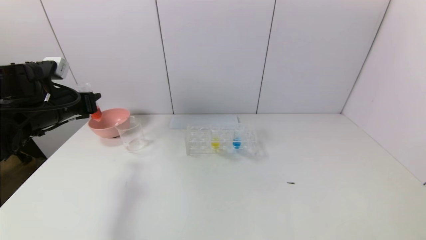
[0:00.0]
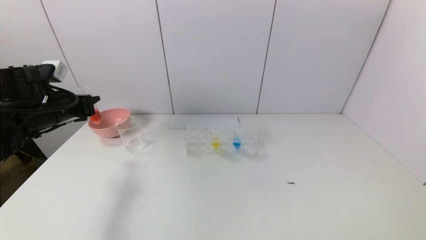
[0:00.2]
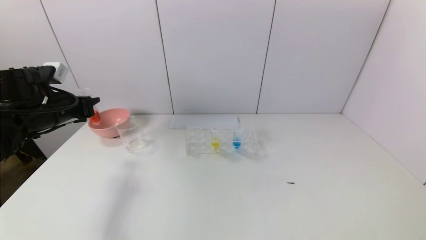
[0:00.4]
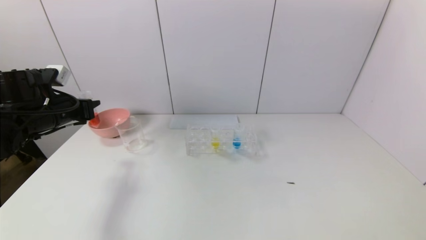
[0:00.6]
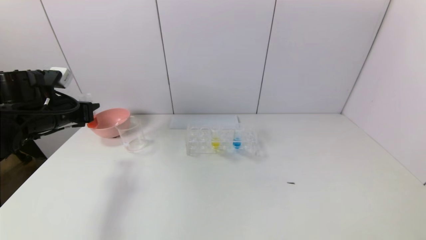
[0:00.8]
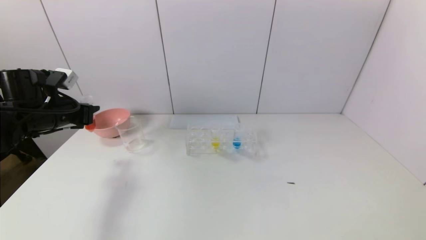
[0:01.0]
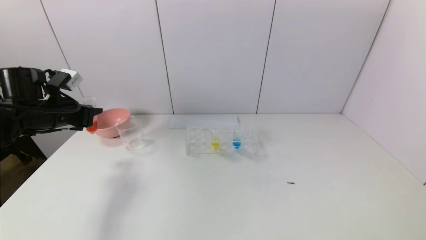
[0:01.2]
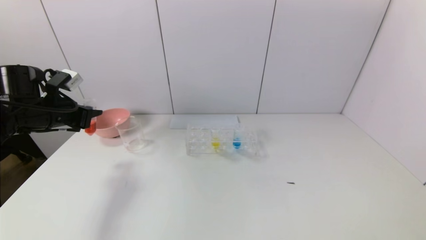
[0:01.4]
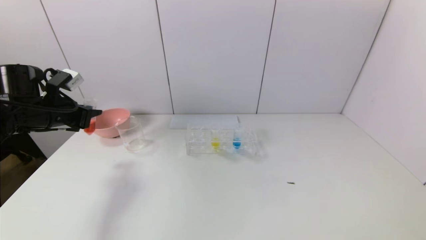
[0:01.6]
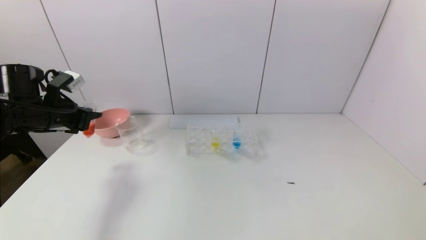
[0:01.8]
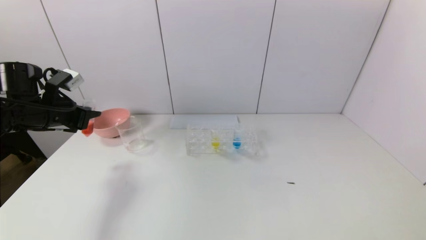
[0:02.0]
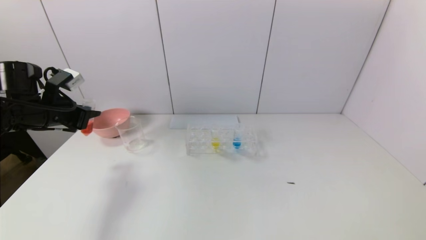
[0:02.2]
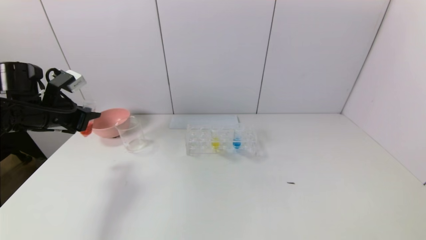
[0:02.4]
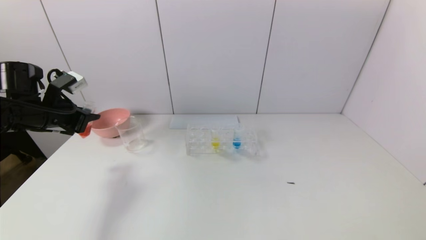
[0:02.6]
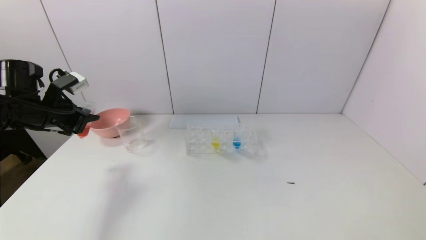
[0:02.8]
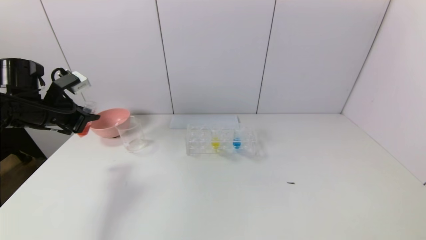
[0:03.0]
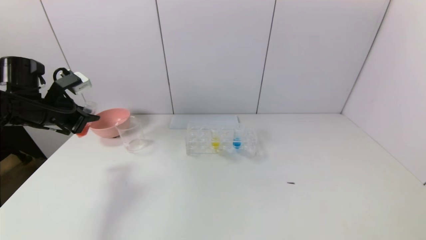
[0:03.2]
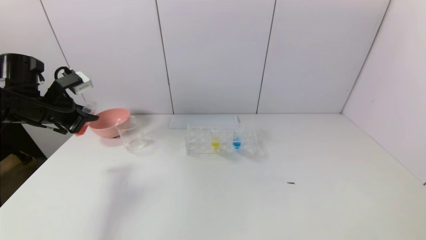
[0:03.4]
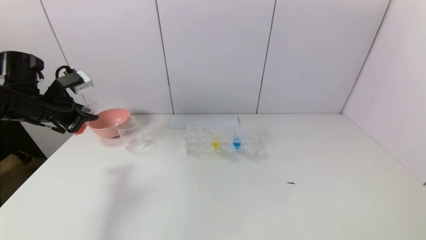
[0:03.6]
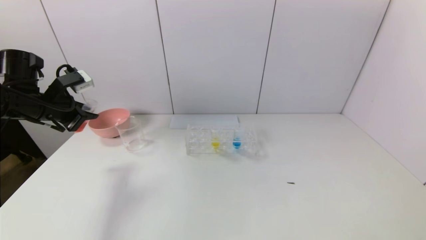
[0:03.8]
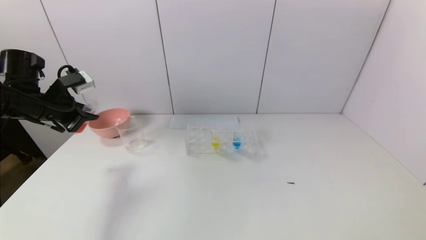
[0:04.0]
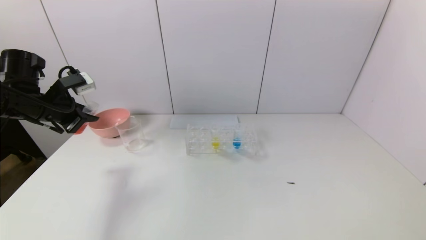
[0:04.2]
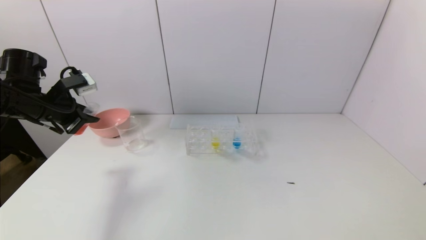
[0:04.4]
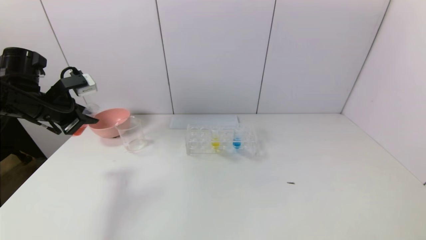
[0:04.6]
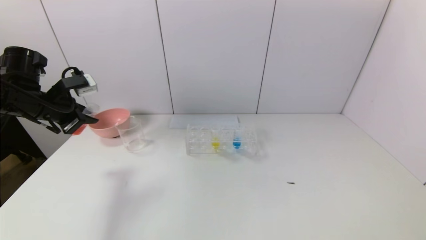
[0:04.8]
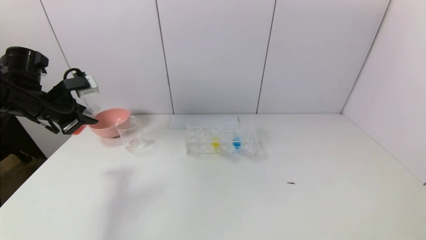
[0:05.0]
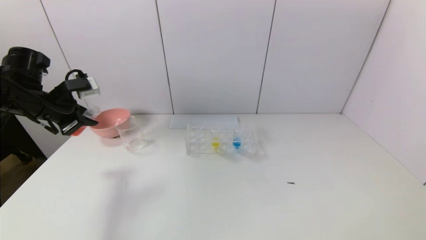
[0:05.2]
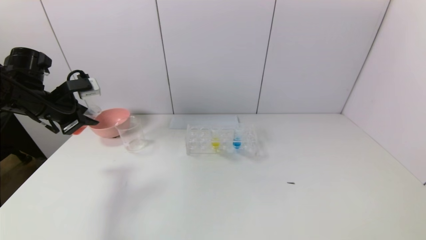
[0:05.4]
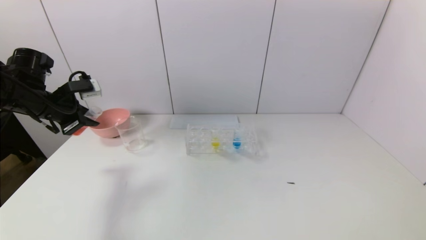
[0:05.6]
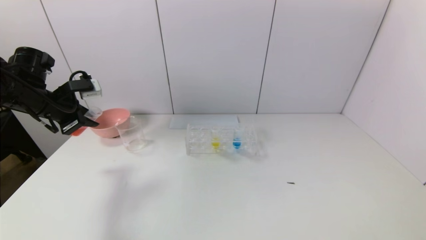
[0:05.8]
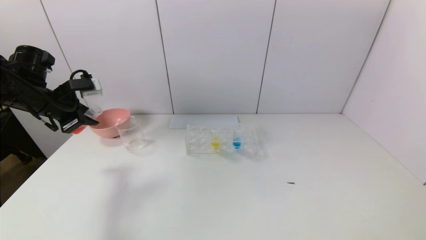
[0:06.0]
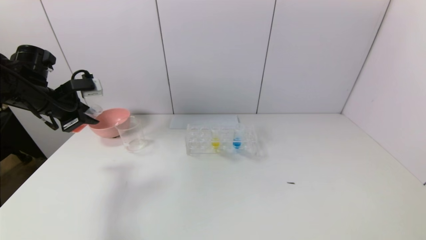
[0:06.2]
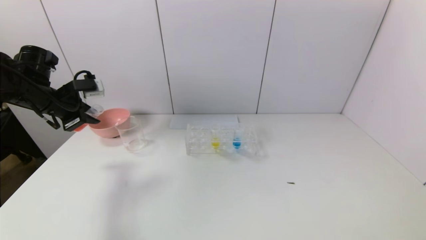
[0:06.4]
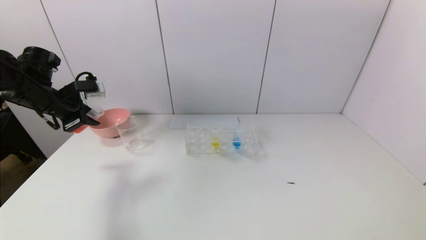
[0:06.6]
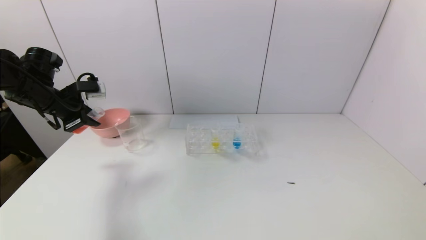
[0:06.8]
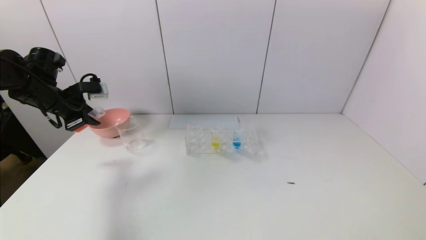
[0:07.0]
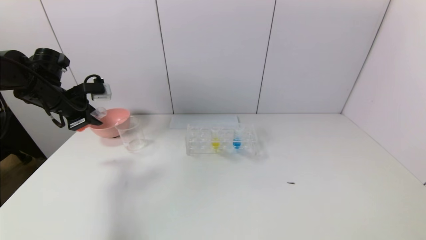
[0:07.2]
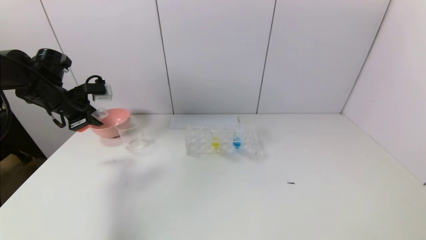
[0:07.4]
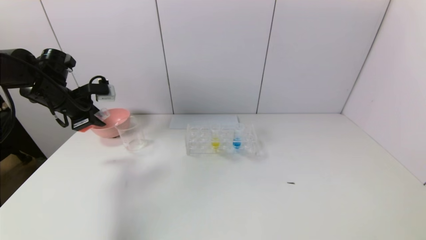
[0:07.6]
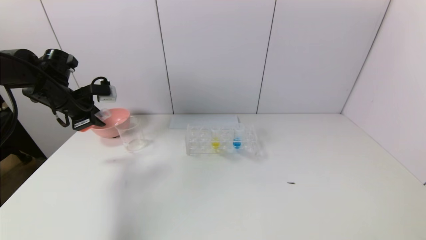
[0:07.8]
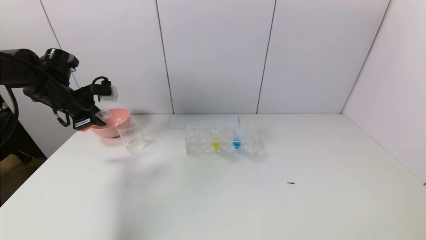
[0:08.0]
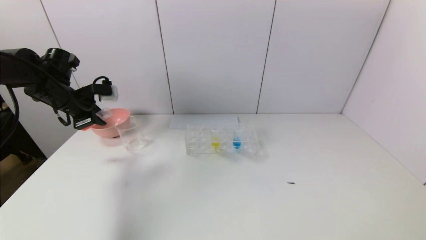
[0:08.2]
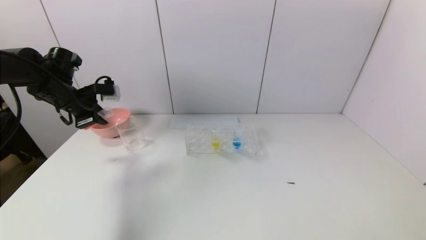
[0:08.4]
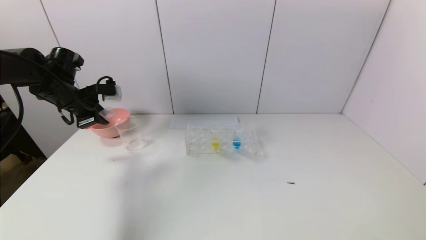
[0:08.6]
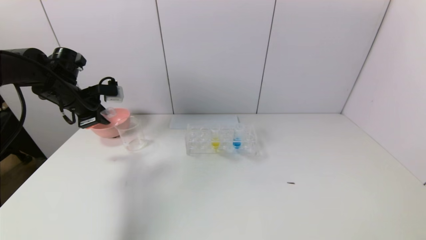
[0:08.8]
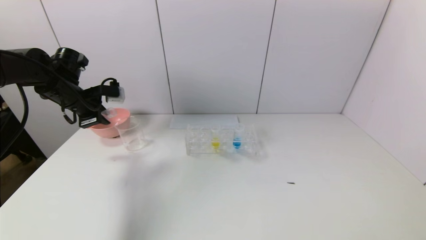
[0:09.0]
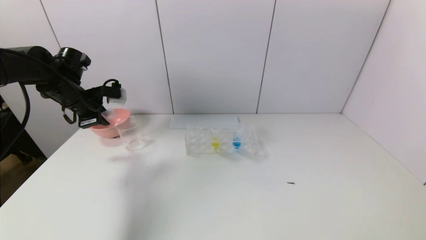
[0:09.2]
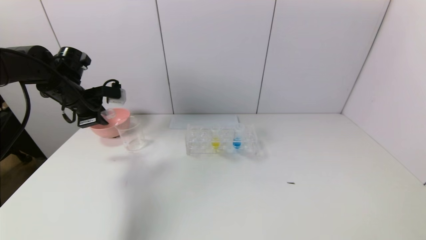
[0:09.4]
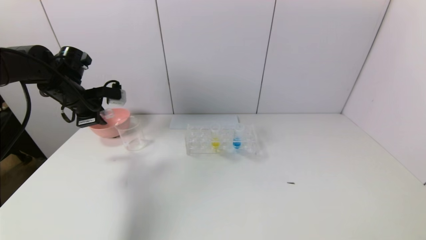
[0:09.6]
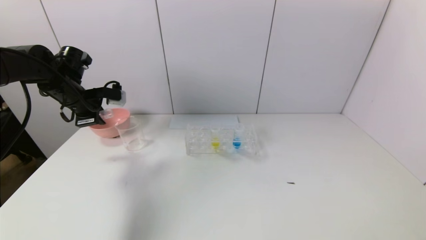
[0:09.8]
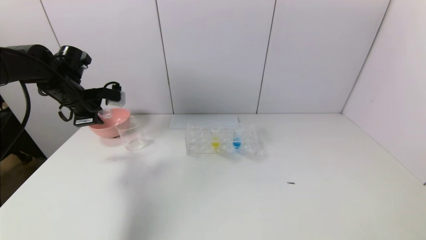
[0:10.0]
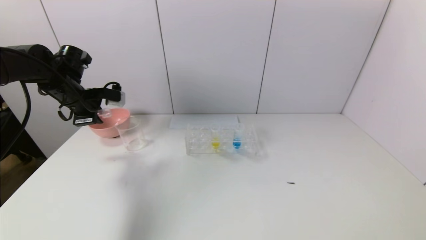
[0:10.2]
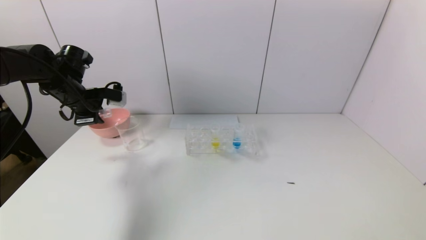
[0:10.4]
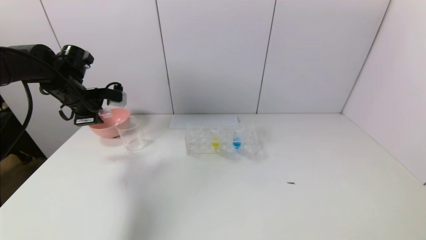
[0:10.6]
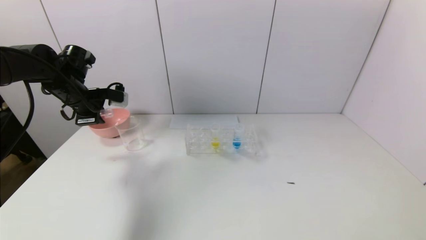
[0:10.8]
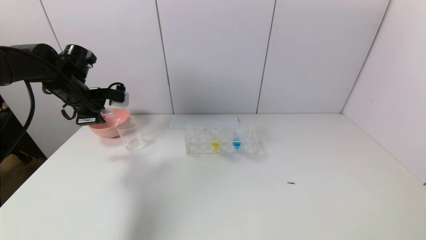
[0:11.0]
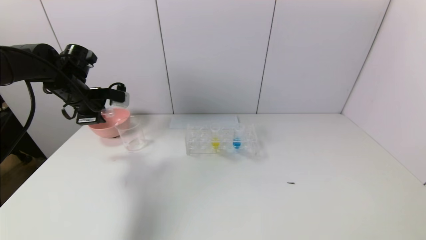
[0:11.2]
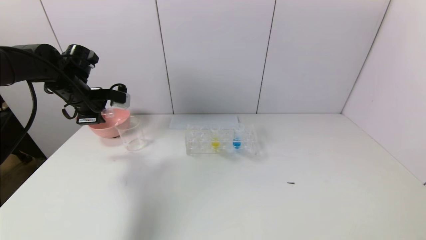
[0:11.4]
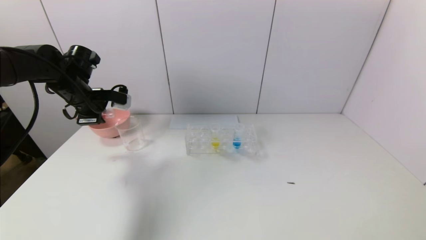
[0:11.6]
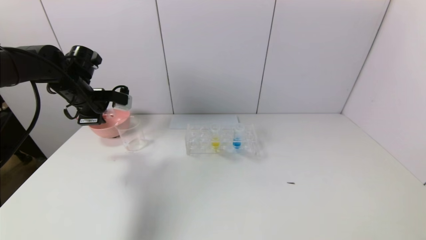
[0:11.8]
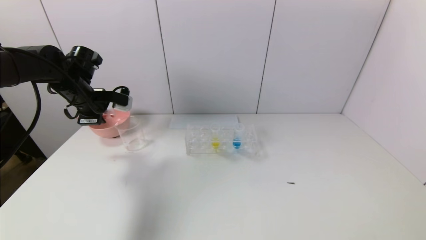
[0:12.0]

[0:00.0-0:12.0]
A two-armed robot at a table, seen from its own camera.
Task of the whole recording: pick up the test tube with yellow pigment and the test tube with red pigment by grippers and pour them into the beaker.
0:01.6 to 0:03.0: The grippers stay close to where they were, moving slightly.
0:03.0 to 0:04.4: The grippers make only small movements.
0:04.4 to 0:06.0: The grippers stay close to where they were, moving slightly.
0:06.0 to 0:09.0: The grippers move only a little.
0:09.0 to 0:12.0: The grippers make only small movements.

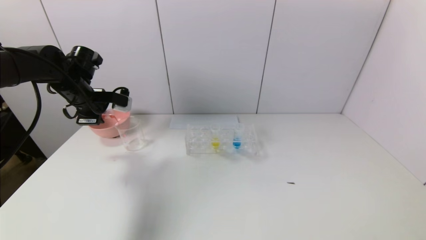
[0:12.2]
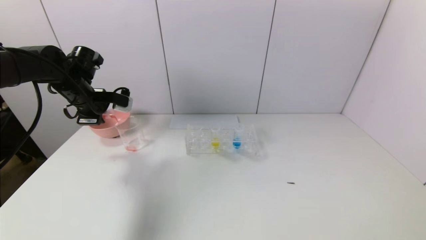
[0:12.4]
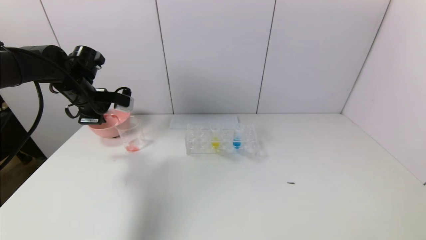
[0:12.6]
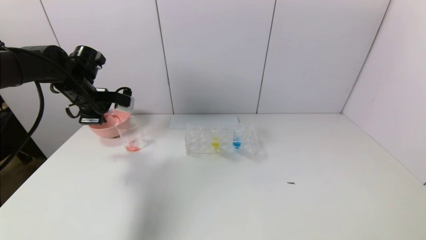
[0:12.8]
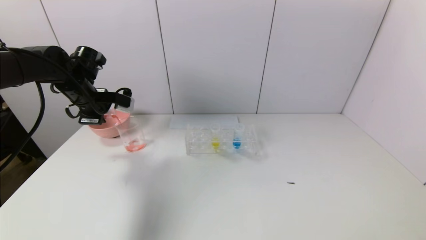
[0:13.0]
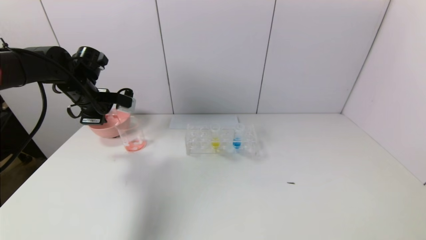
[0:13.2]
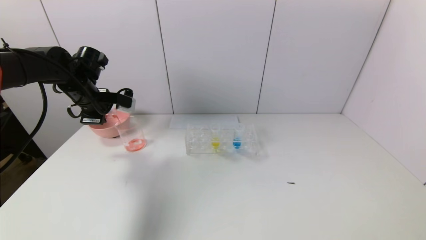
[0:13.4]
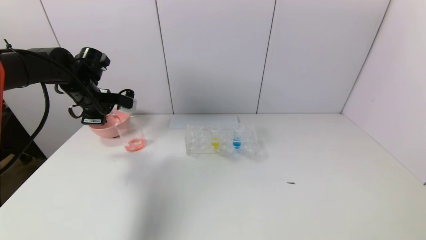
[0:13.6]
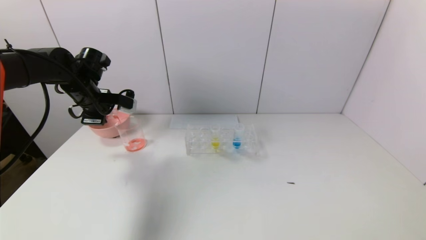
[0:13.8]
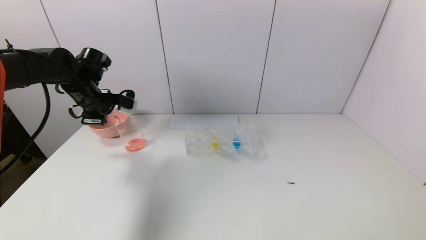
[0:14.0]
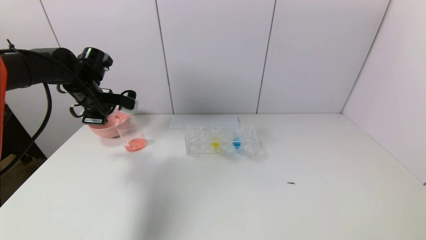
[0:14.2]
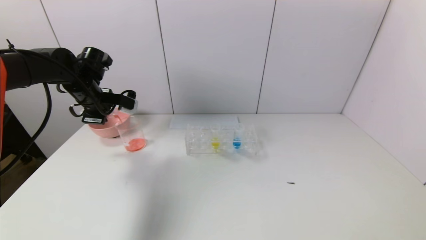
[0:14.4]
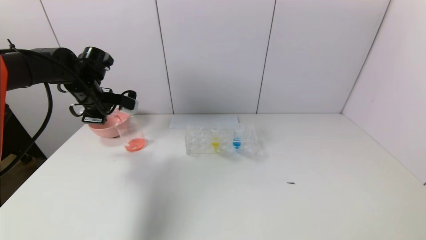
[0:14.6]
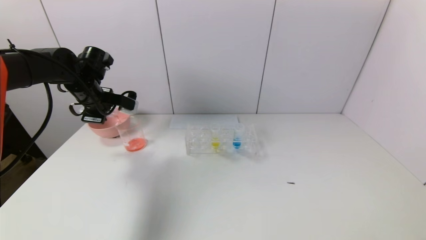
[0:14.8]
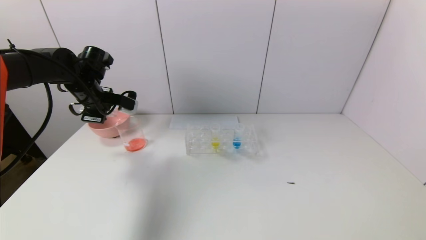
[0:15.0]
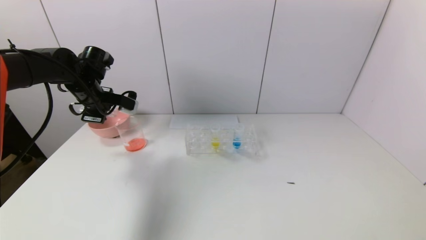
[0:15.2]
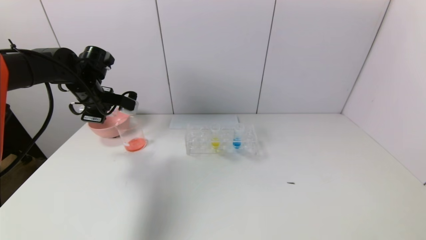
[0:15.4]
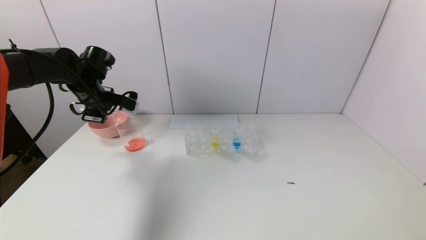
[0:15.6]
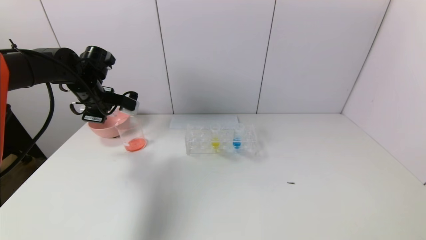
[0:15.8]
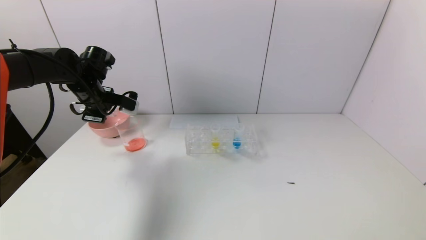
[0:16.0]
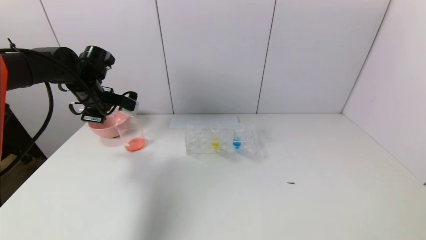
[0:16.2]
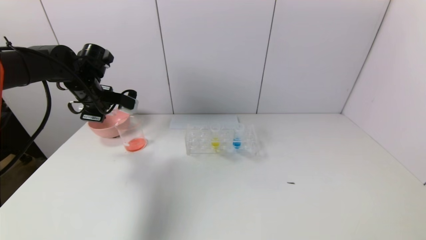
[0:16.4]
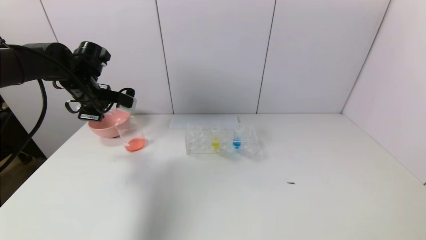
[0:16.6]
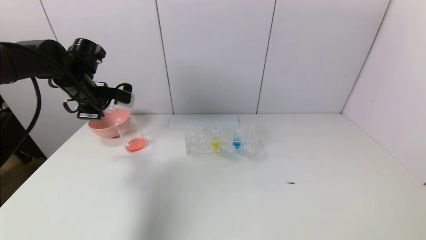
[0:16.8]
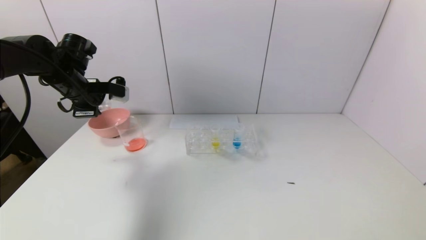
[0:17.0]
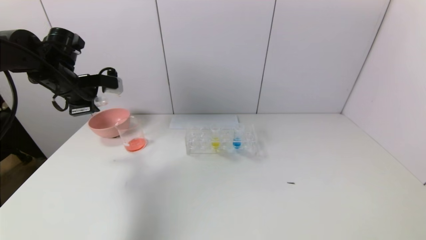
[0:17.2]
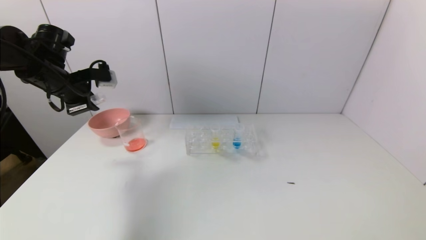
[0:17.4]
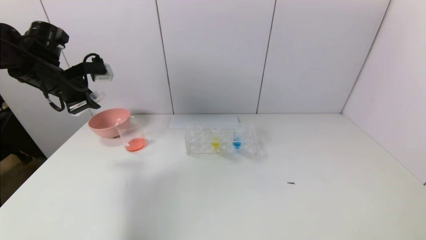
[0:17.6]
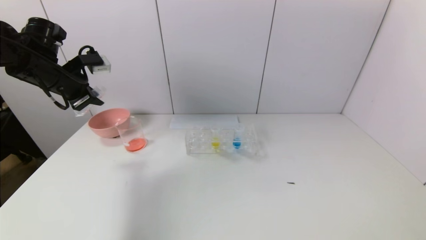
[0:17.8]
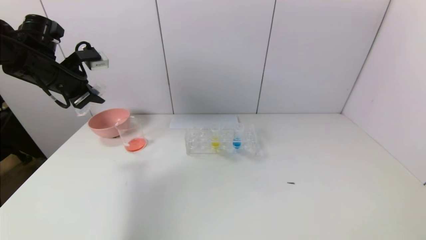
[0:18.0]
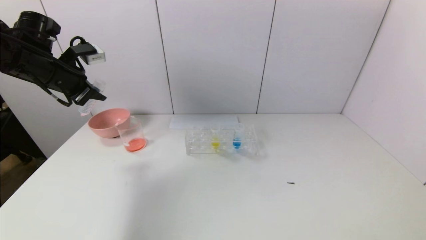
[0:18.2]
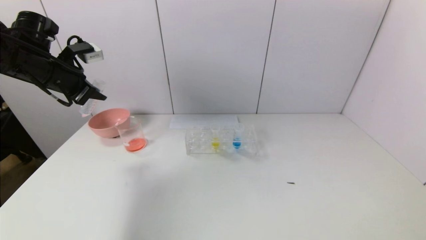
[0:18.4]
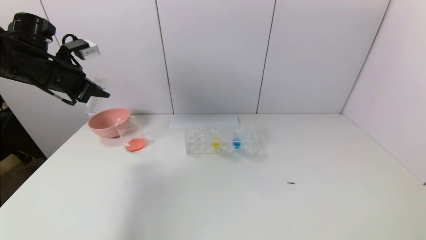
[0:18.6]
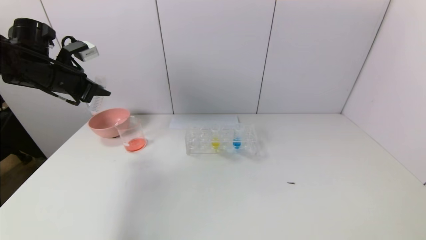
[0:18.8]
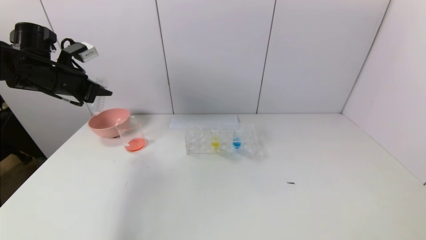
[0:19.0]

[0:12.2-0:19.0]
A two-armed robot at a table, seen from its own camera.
Task of the whole recording: pick up the test tube with yellow pigment and the test tube with red pigment by grippers and pour them into the beaker.
Step, 0:12.2 to 0:16.6: Pour the red reagent into the graduated cylinder with the left gripper.
0:12.2 to 0:13.6: Neither gripper changes place.
0:13.6 to 0:15.0: There are only small adjustments of the grippers.
0:15.0 to 0:16.2: Both grippers stay put.
0:16.2 to 0:17.6: The left gripper shifts by roughly 10 cm.
